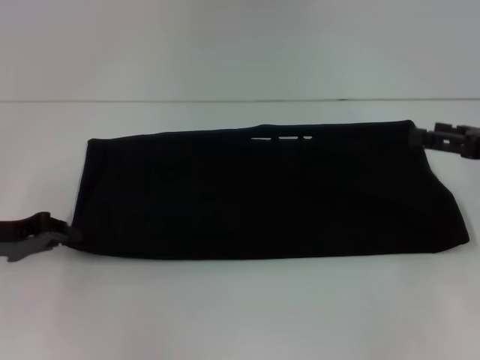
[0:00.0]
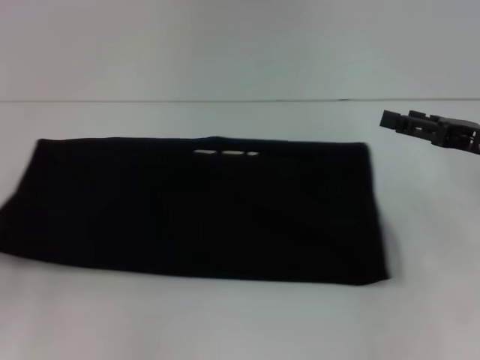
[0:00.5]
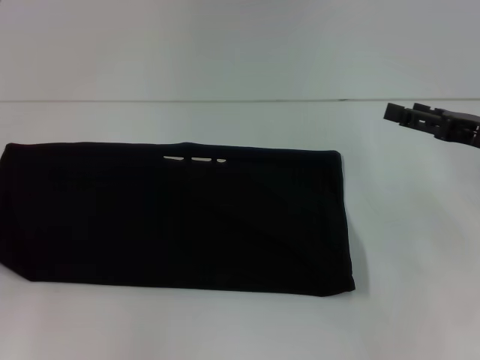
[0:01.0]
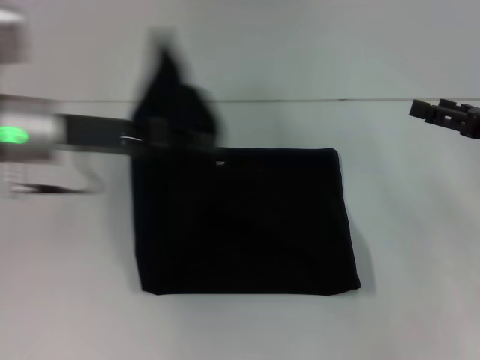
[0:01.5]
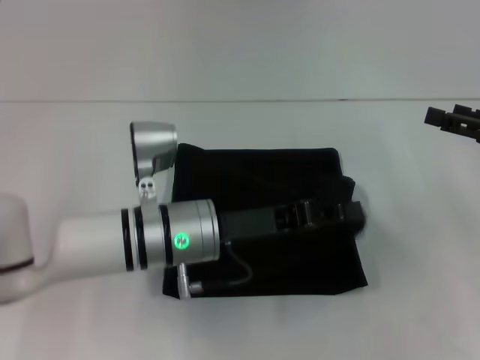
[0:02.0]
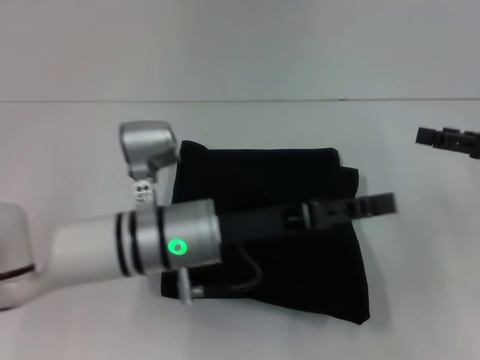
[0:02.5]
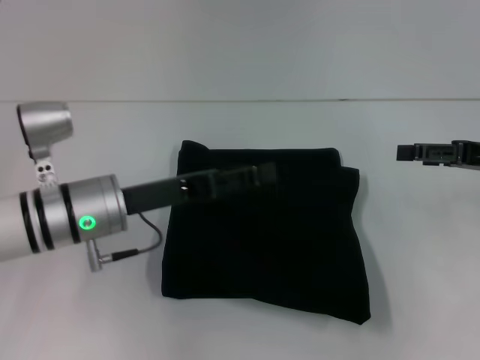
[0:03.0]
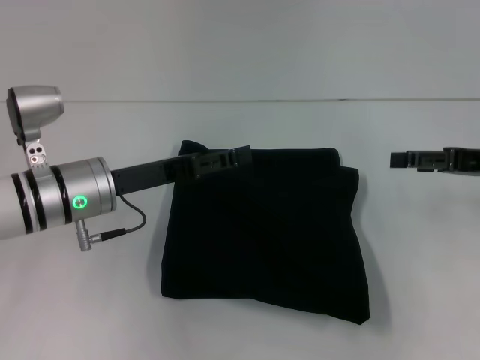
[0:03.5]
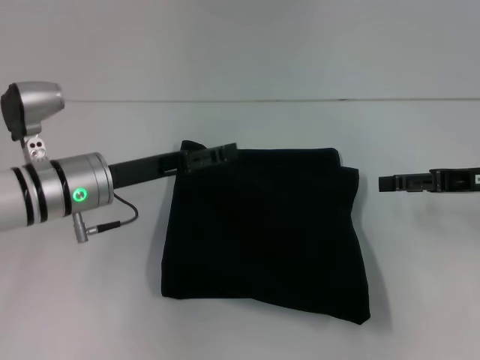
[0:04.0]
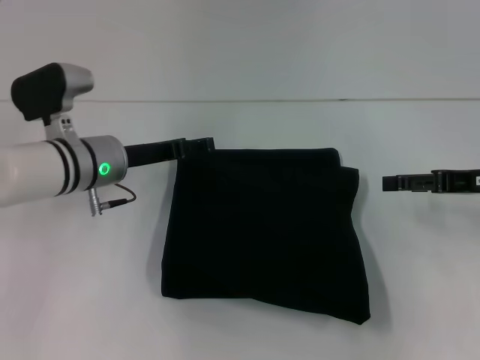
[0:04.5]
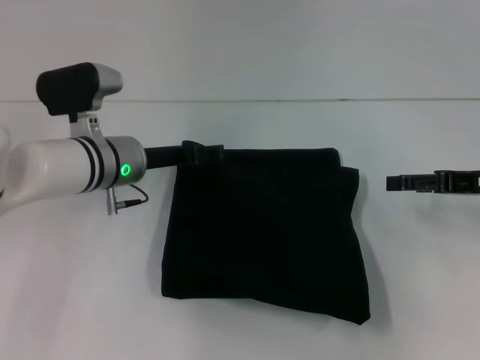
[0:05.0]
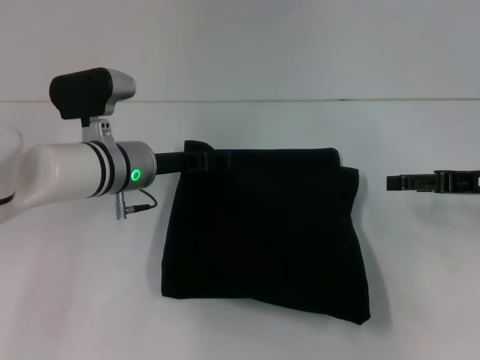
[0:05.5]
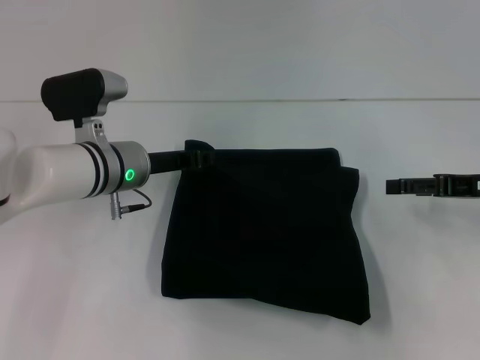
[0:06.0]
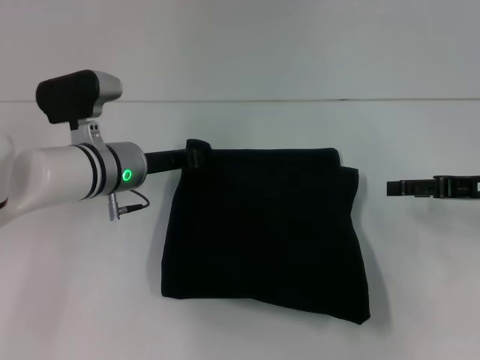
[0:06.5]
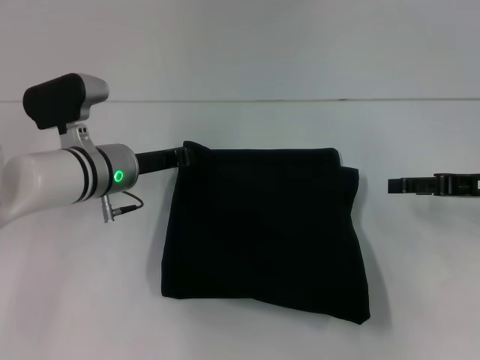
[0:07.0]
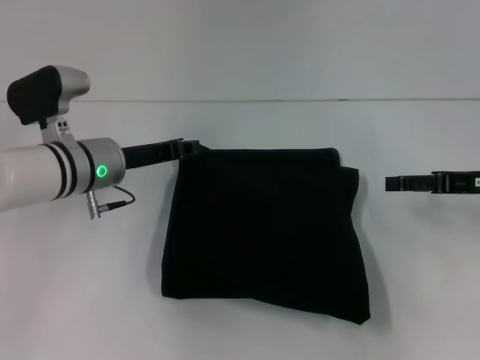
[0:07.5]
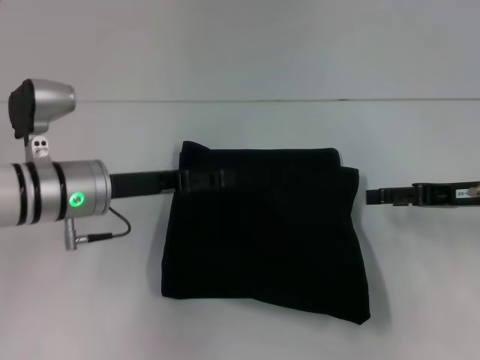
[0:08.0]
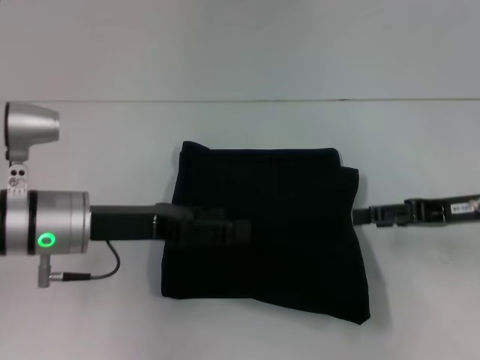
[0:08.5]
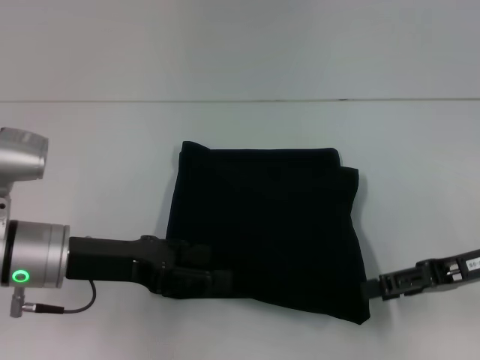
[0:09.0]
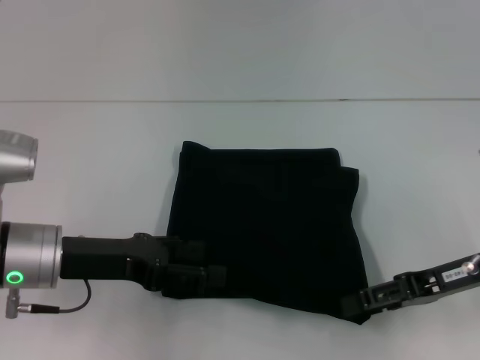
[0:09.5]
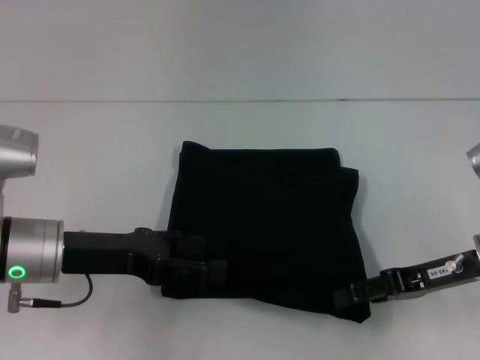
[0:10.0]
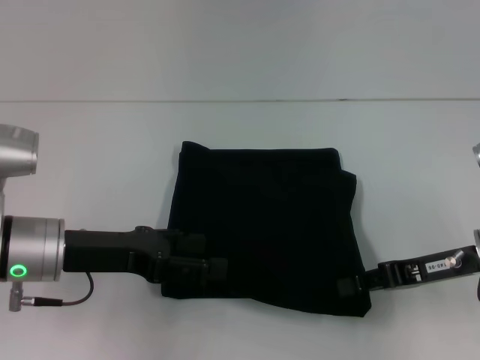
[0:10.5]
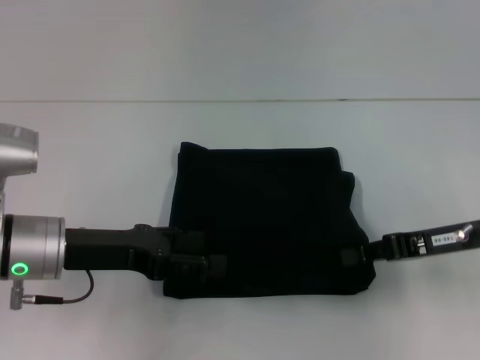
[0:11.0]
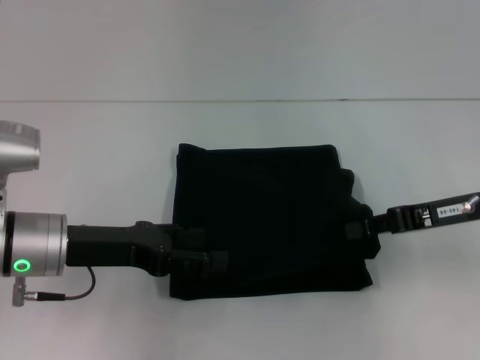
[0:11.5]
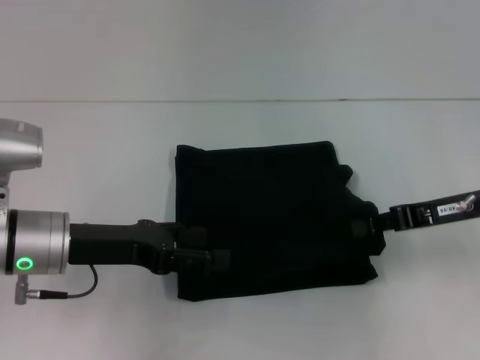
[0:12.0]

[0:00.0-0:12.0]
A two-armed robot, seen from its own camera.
Step, 0:00.0 to 0:02.5: Fold the clothes with your left hand.
0:00.0 to 0:02.0: The left gripper moves to the right, about 25 cm.
0:02.0 to 0:04.0: The left gripper heads to the left, covering roughly 10 cm, and opens up.
0:04.0 to 0:06.0: The left gripper moves some 5 cm, and closes its fingers.
0:06.0 to 0:08.0: The left gripper shifts by roughly 5 cm, and closes, then opens again.
0:08.0 to 0:10.0: The right gripper ends up roughly 5 cm from where it was. The left gripper travels backward by about 5 cm.
0:10.0 to 0:12.0: The right gripper changes place by some 5 cm, and closes its fingers.

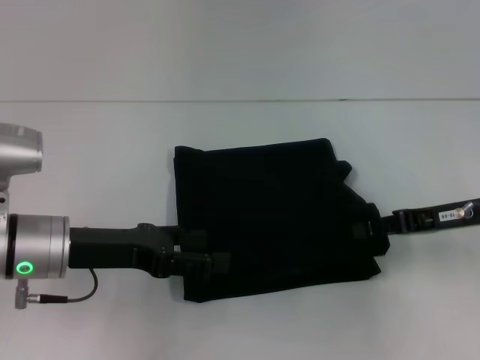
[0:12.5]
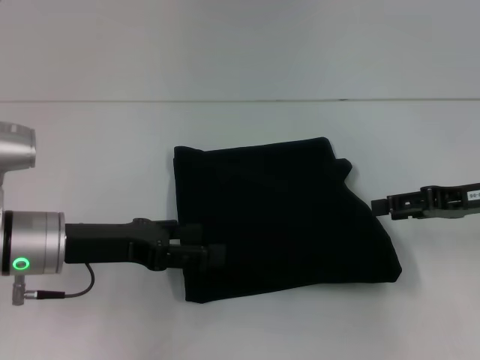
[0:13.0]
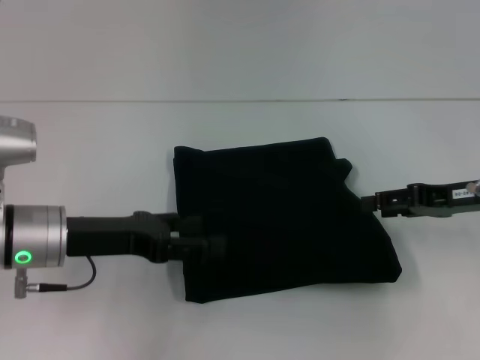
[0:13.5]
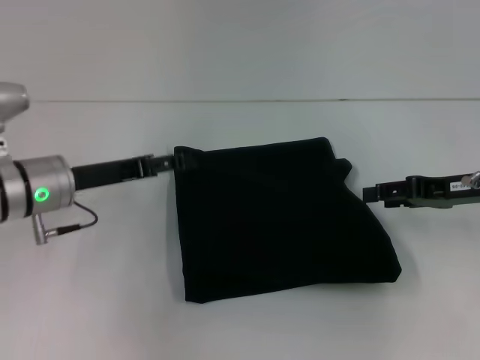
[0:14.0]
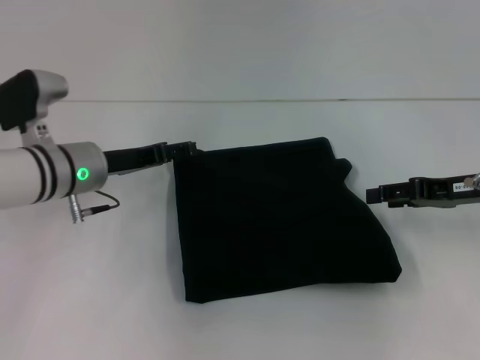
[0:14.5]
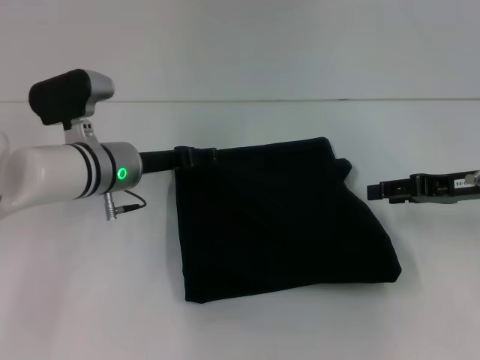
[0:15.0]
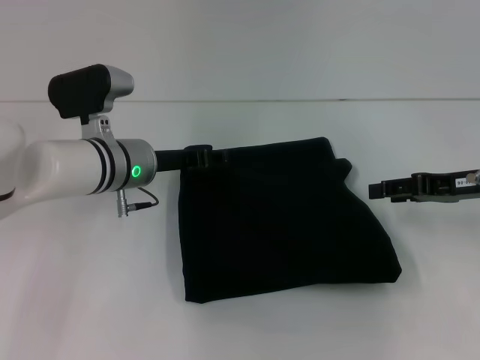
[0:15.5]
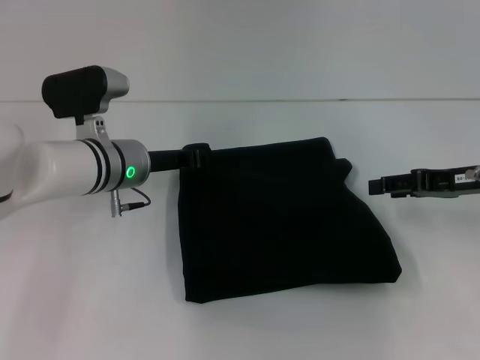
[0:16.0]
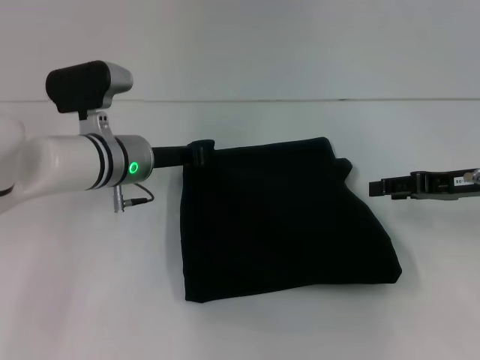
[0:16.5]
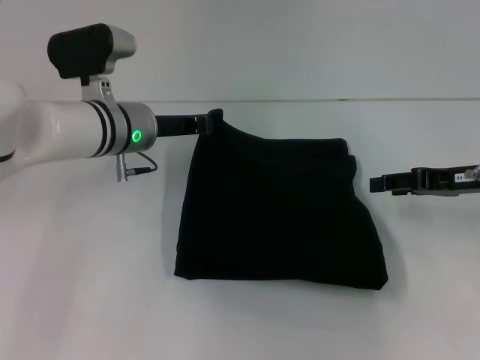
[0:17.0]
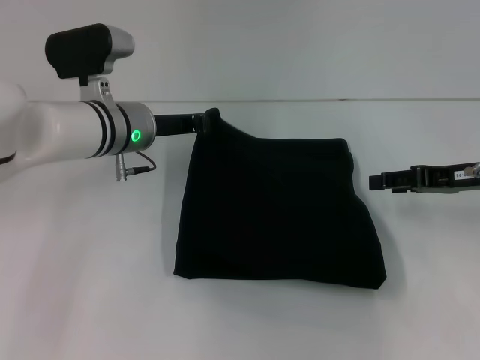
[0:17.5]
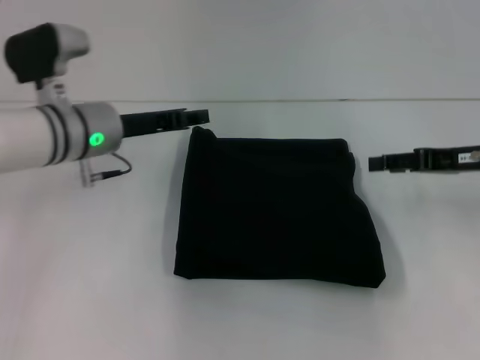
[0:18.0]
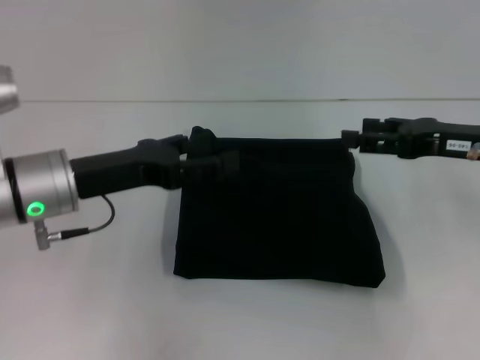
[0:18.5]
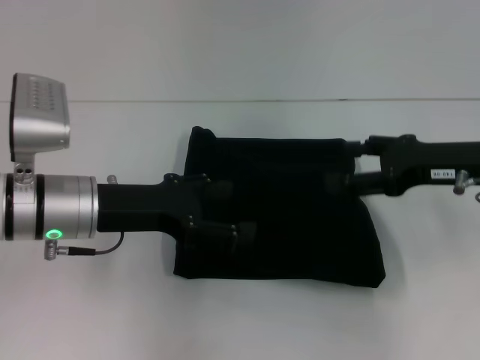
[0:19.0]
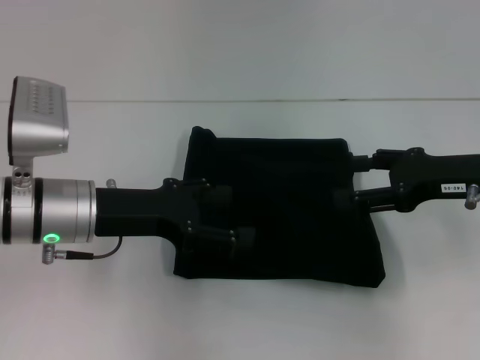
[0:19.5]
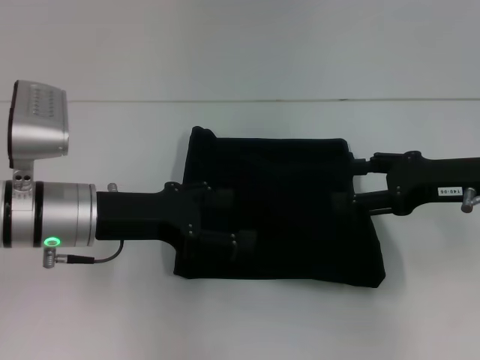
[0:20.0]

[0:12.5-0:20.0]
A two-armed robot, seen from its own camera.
0:12.5 to 0:14.5: The right gripper opens up; the left gripper moves forward, approximately 10 cm.
0:14.5 to 0:16.5: The left gripper shifts some 5 cm to the right, and closes its fingers.
0:16.5 to 0:18.0: The left gripper opens.
0:18.0 to 0:20.0: The left gripper is displaced backward by about 10 cm, and opens its fingers.
